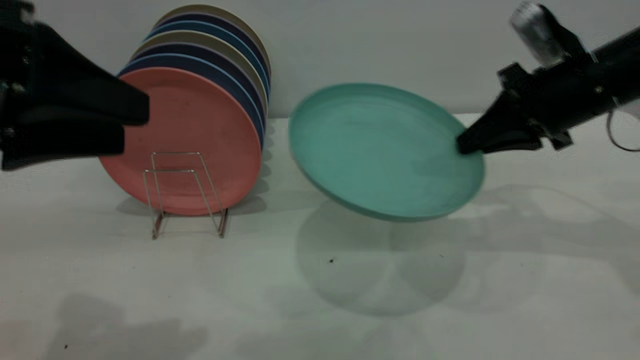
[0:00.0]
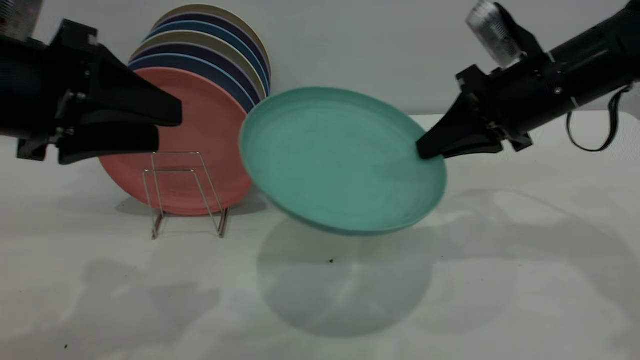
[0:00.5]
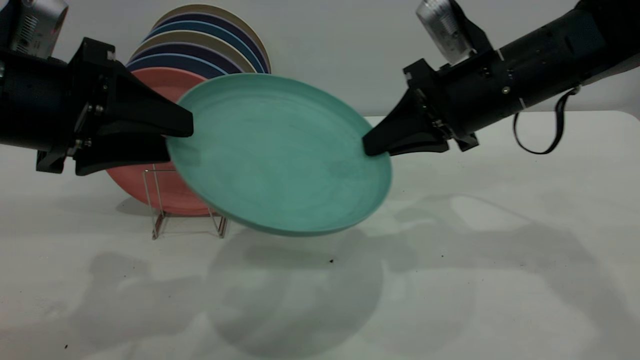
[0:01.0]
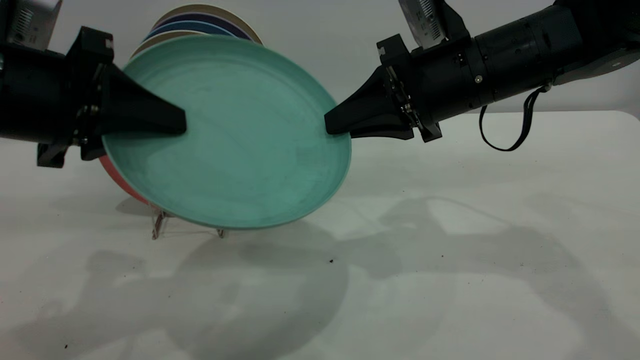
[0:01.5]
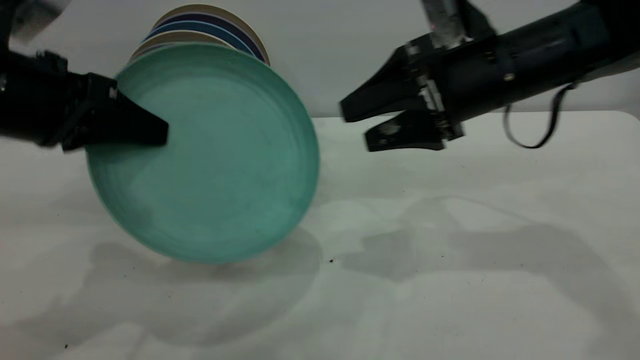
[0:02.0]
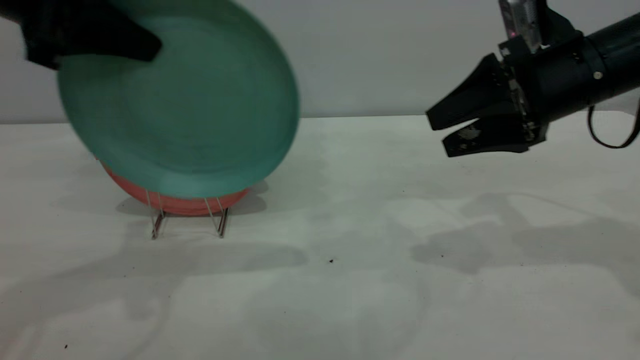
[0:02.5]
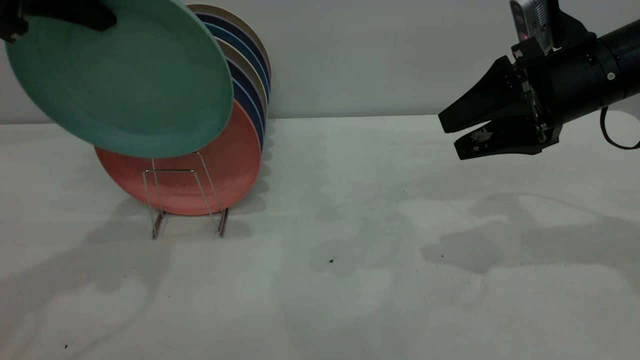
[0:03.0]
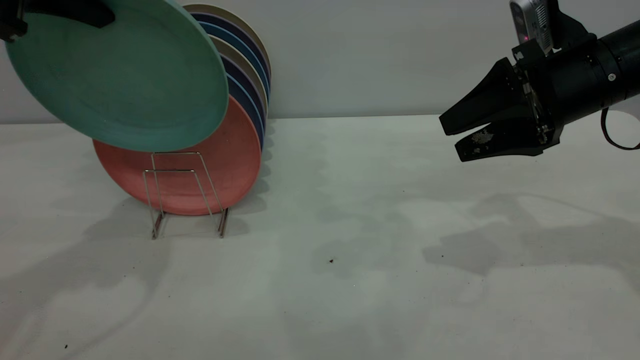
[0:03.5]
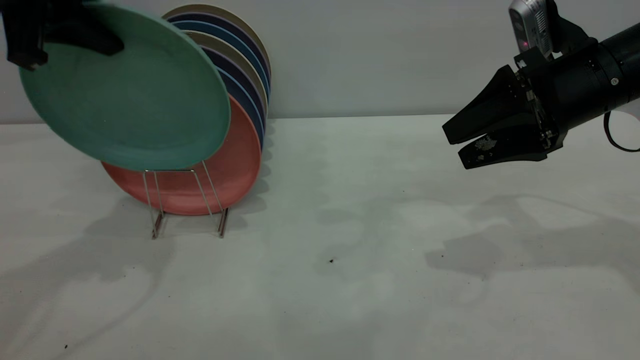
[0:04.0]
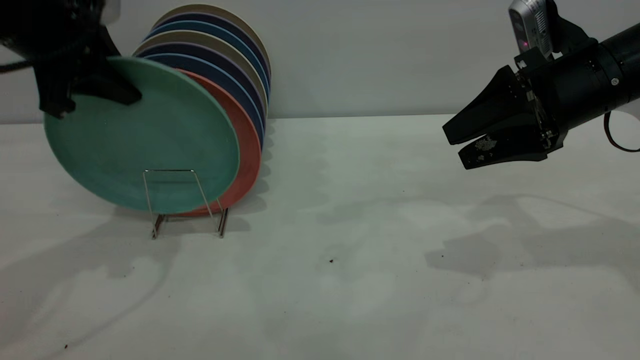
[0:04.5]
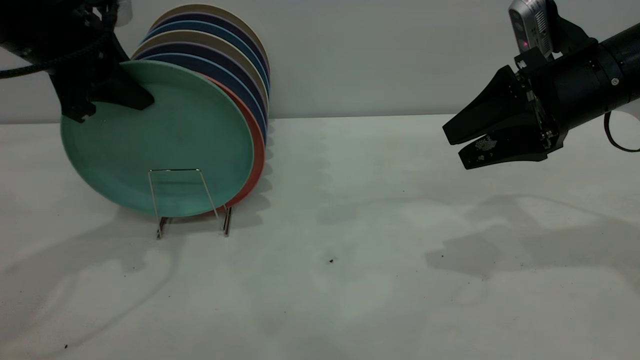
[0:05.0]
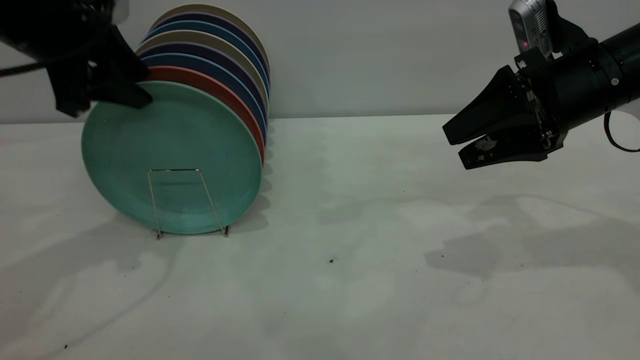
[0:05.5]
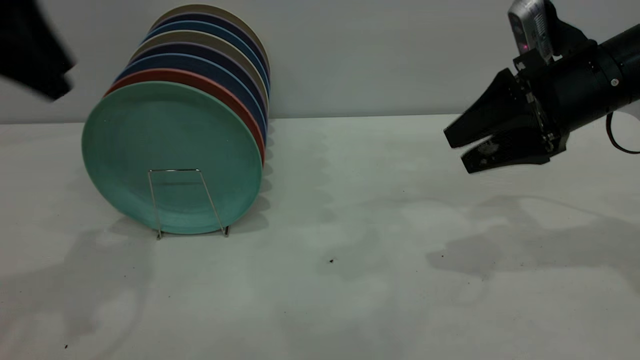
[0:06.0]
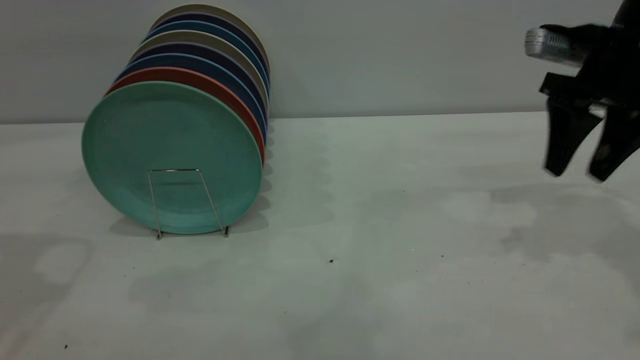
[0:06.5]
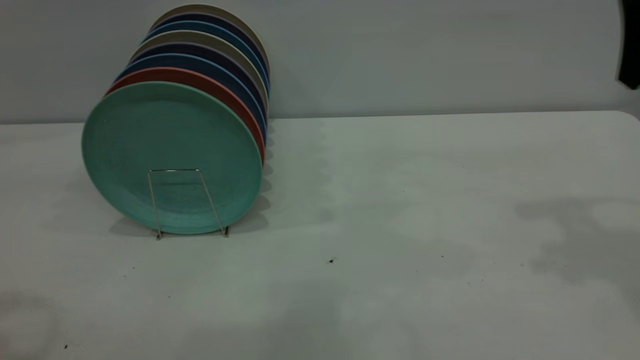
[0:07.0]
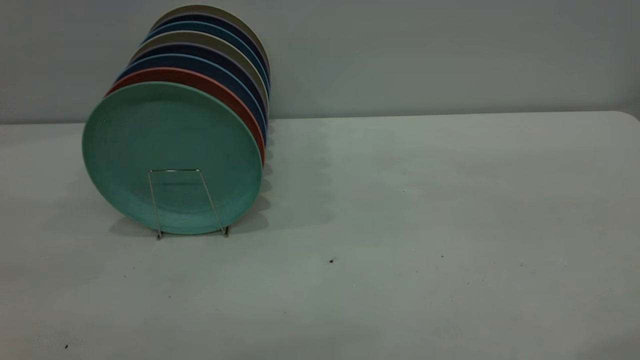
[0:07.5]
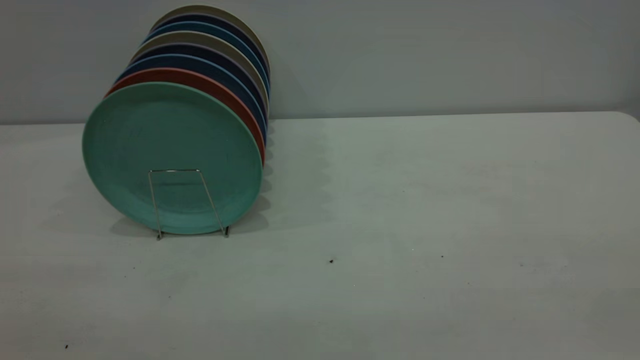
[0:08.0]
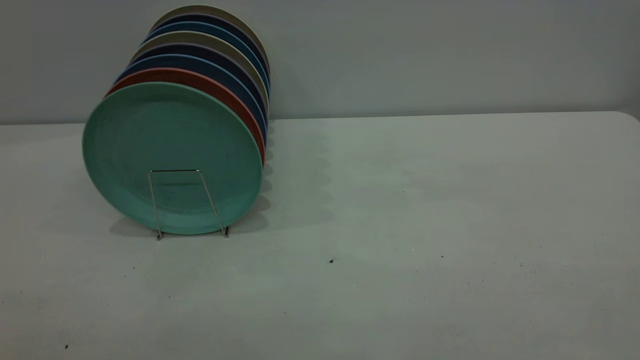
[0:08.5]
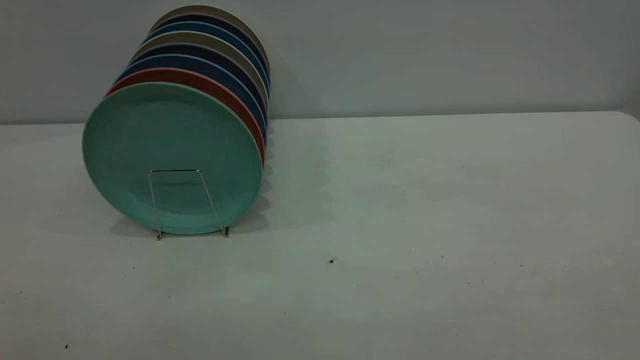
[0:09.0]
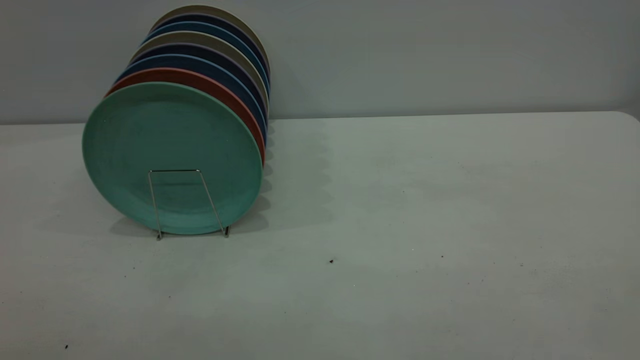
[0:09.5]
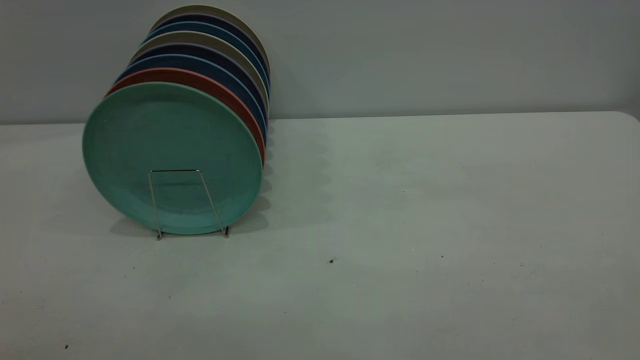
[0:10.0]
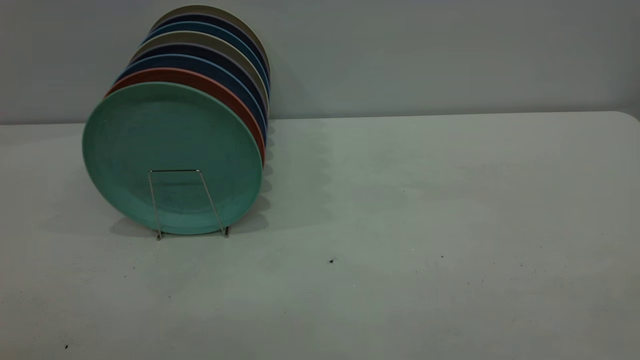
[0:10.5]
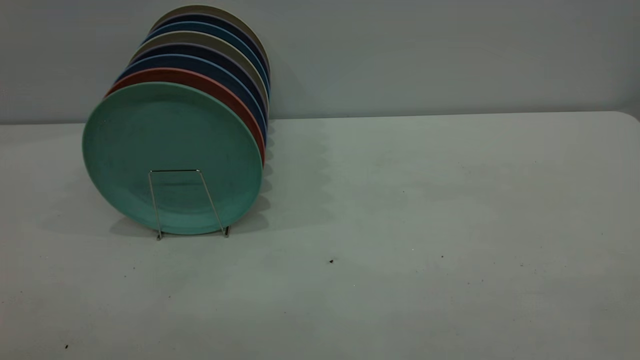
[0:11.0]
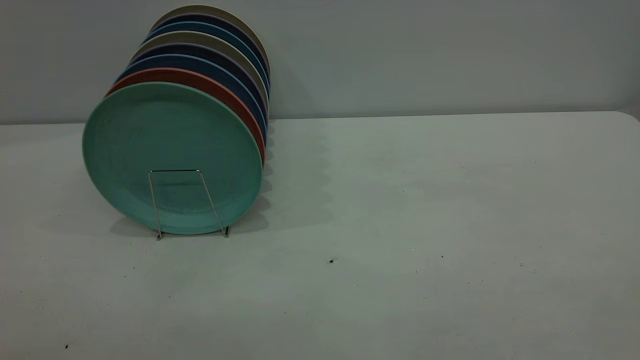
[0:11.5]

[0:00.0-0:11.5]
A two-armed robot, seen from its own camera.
Task of the whole recording: the right gripper grasp the green plate, the right gripper pass the green plate to the left gripper, and the left gripper place the green plate on the plate rack.
Step, 0:00.0 to 0:01.5: Pass the plate from the right gripper to the left gripper.
Step, 0:02.0 to 0:05.5: Place the plate on the shelf.
0:00.0 to 0:02.0: The left gripper heads forward, covering roughly 5 cm, and closes up. Meanwhile the right gripper travels to the left by about 10 cm, and opens.
0:02.0 to 0:04.0: The left gripper moves forward and upward, about 10 cm, while the right gripper is displaced to the right by about 10 cm.
0:04.0 to 0:06.0: The left gripper reaches approximately 5 cm downward, then returns, and opens its fingers.
0:06.0 to 0:07.5: The left gripper shifts roughly 25 cm backward, while the right gripper travels backward and upward by some 30 cm.
0:09.5 to 0:11.5: Both grippers stay put.
